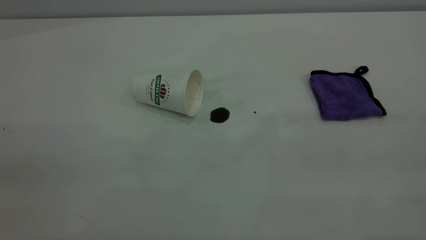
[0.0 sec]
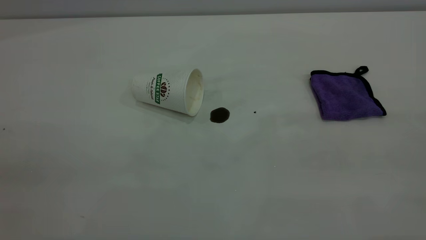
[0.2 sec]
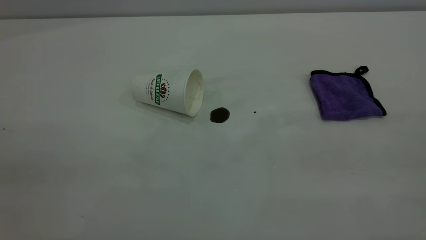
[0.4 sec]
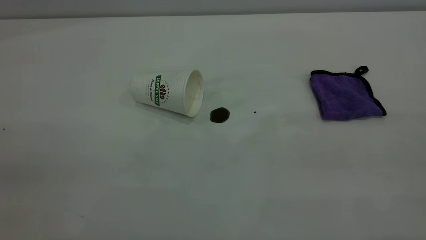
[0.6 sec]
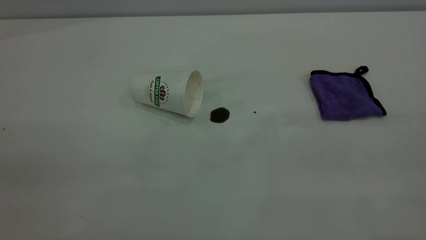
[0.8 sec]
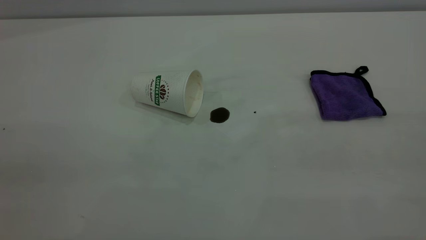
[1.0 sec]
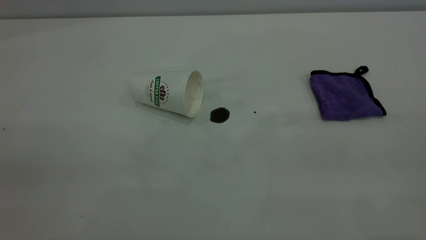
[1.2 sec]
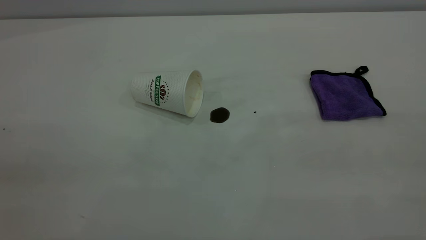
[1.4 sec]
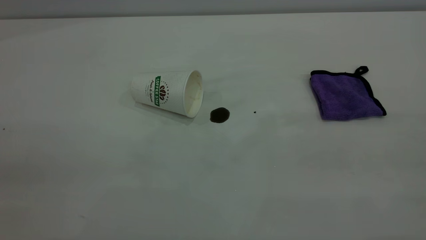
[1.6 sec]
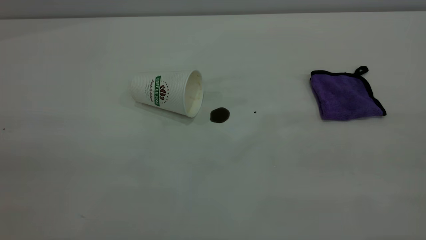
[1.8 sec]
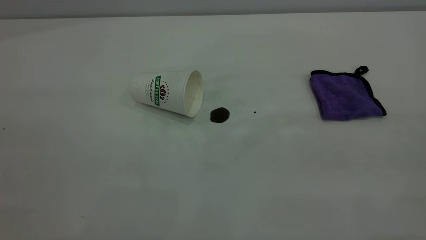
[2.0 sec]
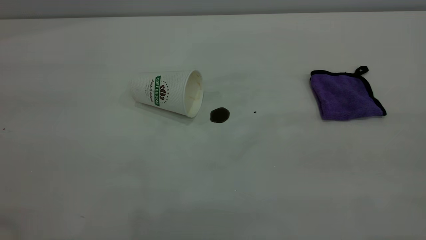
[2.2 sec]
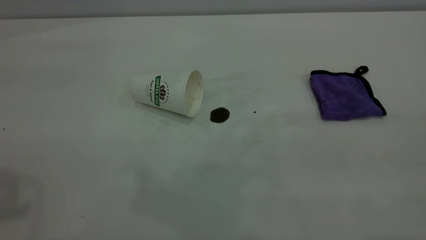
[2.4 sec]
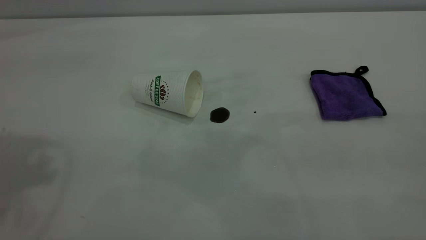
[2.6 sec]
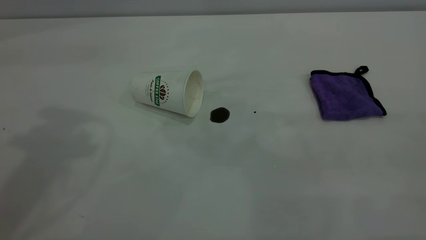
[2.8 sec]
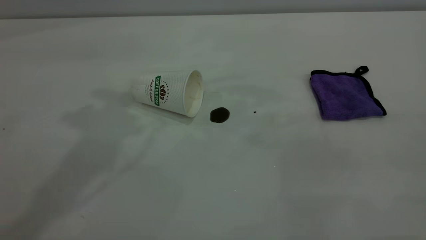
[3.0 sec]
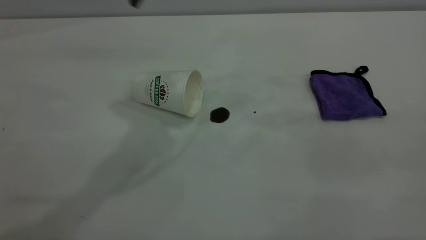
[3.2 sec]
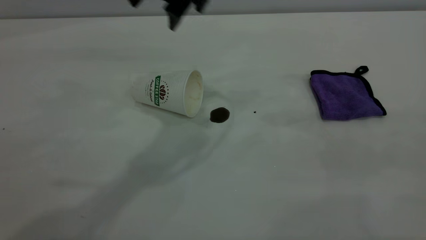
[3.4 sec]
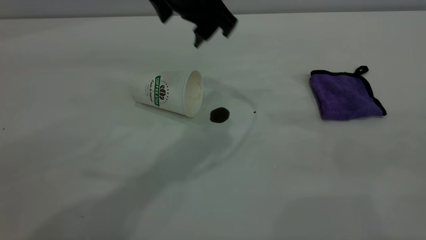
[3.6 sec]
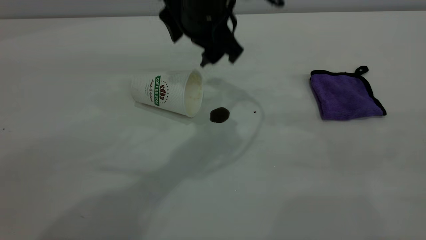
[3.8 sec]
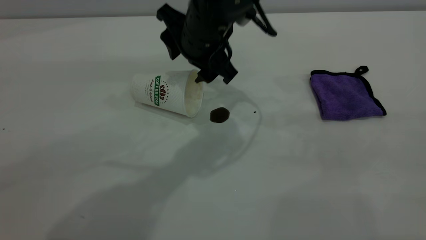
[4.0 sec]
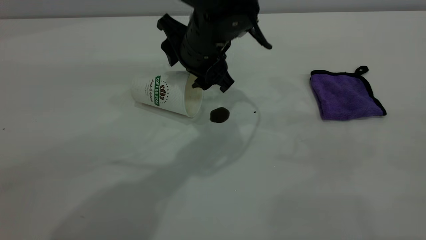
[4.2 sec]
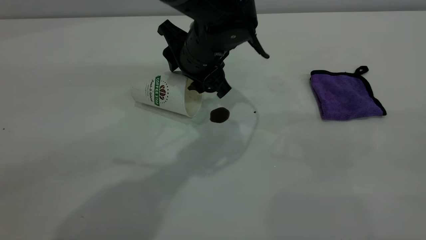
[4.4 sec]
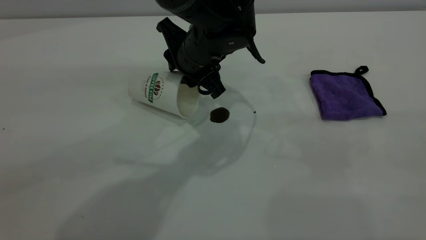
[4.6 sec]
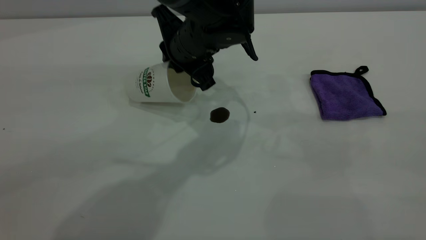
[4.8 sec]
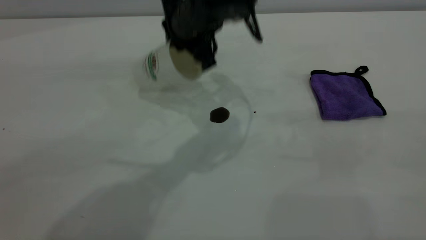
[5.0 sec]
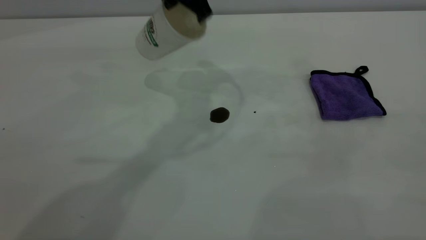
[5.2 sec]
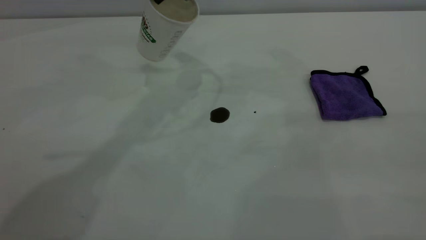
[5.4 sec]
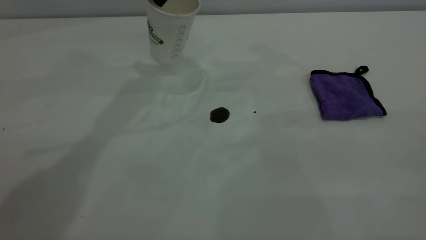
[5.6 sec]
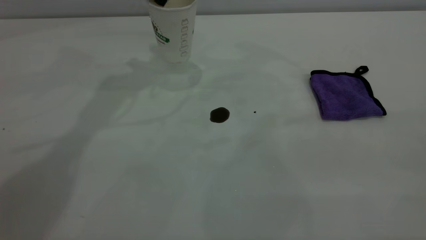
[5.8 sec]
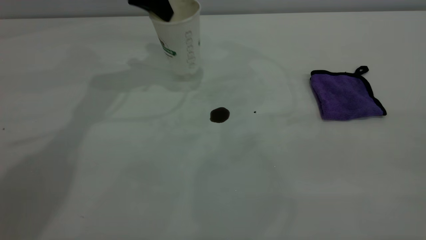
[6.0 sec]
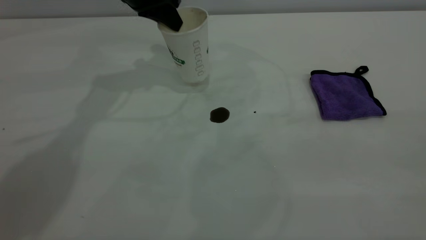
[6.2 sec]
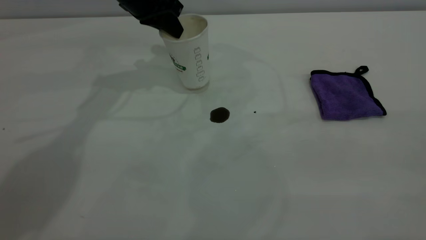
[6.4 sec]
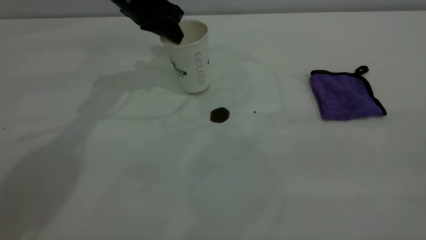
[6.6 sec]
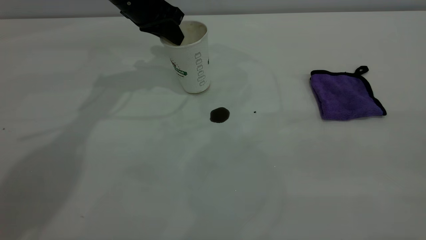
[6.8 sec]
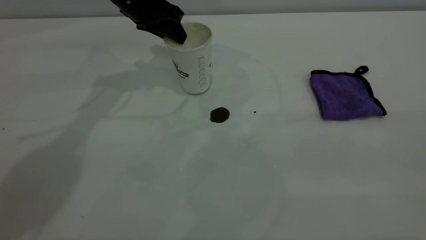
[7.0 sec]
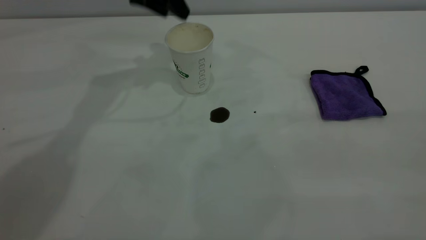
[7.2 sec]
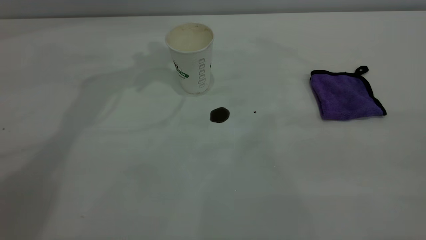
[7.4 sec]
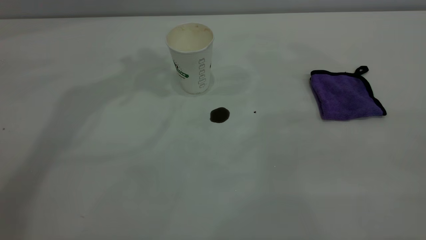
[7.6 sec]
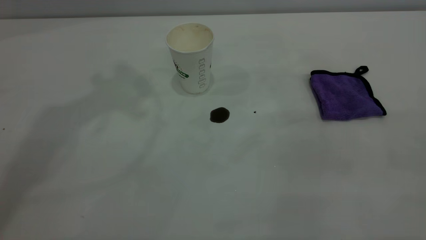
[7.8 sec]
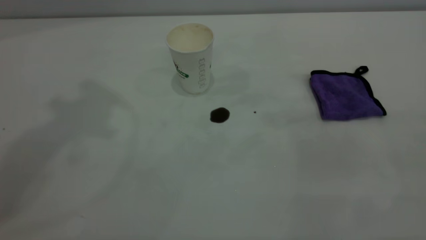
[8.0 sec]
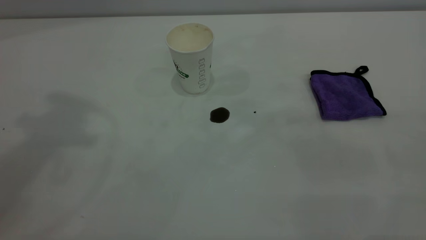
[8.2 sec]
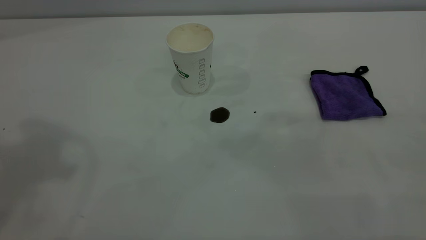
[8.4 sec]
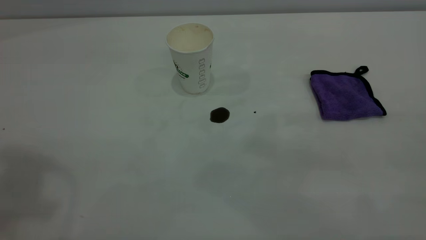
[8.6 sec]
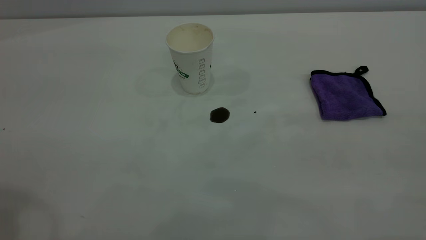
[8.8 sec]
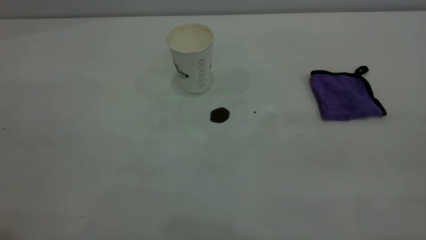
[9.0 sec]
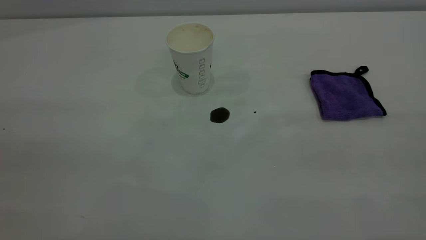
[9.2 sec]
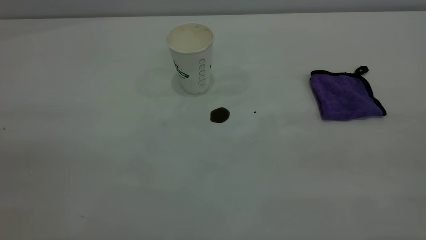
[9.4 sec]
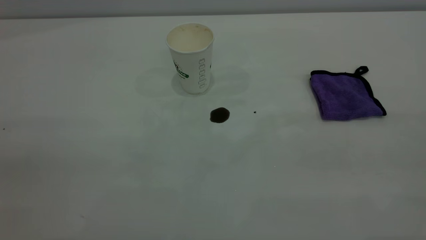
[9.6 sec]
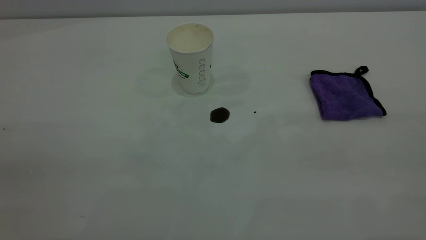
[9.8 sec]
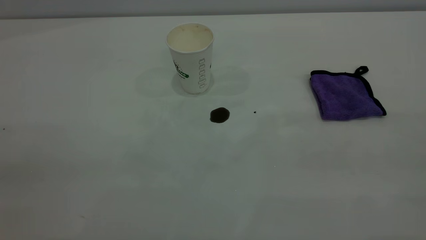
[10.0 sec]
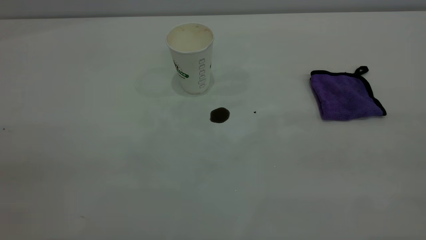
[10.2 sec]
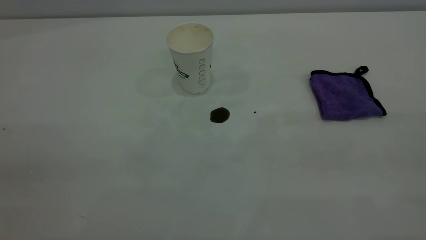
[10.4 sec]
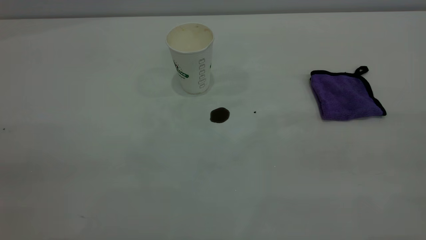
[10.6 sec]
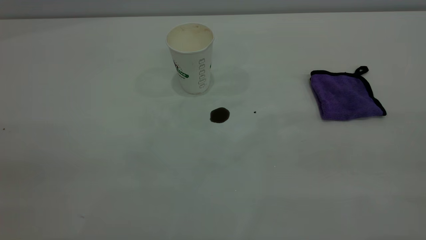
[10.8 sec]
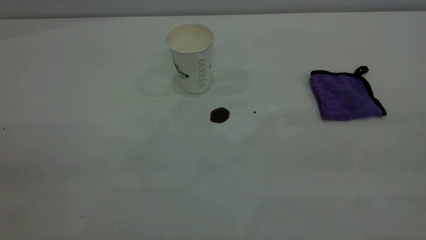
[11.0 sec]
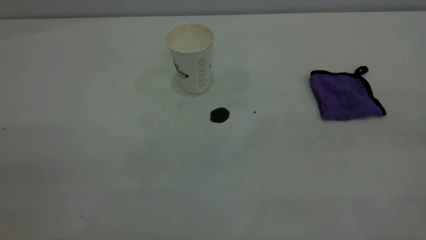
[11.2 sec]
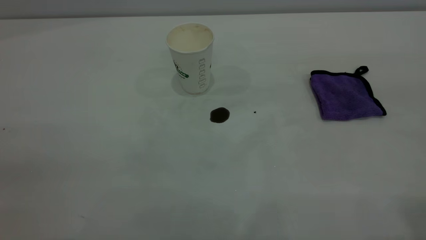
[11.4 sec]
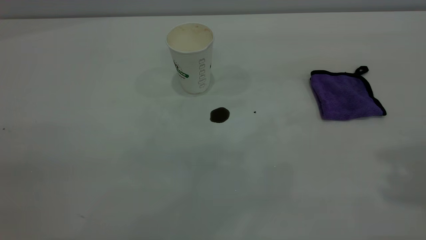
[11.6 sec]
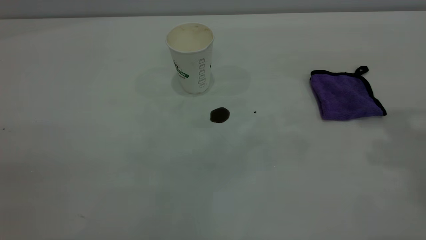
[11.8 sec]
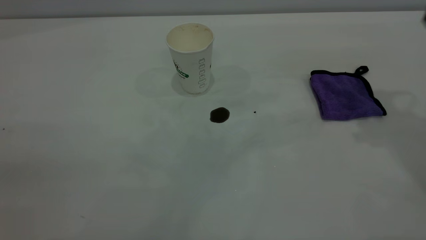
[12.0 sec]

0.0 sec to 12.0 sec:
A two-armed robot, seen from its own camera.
Task of the whole recording: the left gripper pick up the fallen cup and place it upright, the right gripper grasp the purple rag and wipe the coffee stain on the table, the right gripper put the purple rag back in its original position.
Step, 0.0 sec to 7.0 sec: Stand the paper cup upright.
0.0 sec to 1.6 sec: The two grippers keep their place.
3.0 sec to 4.4 sec: The left gripper travels downward and to the right by some 25 cm.
4.4 sec to 6.0 sec: The left gripper moves to the left, forward and upward, about 20 cm, and closes up.
6.0 sec to 7.6 sec: The left gripper moves upward, roughly 20 cm, and opens up.

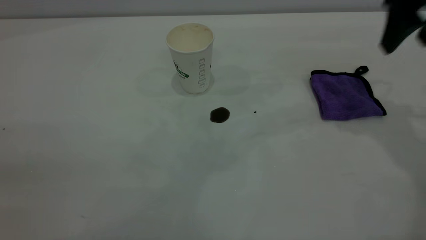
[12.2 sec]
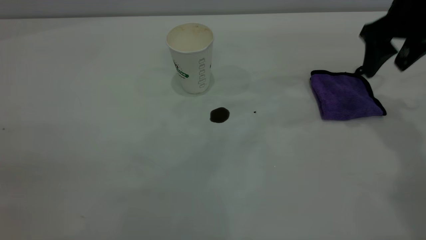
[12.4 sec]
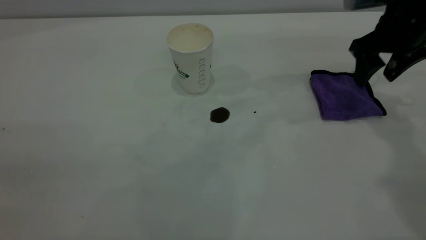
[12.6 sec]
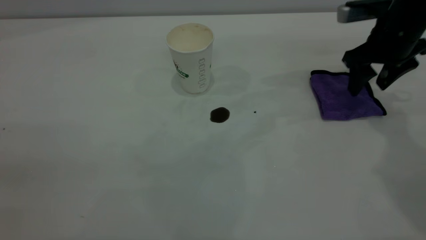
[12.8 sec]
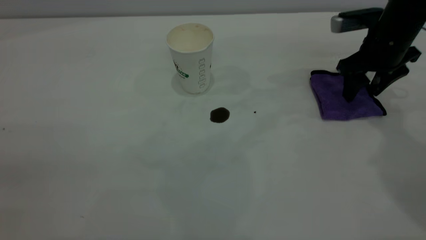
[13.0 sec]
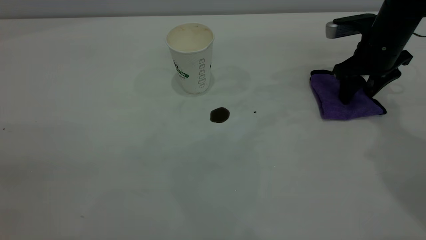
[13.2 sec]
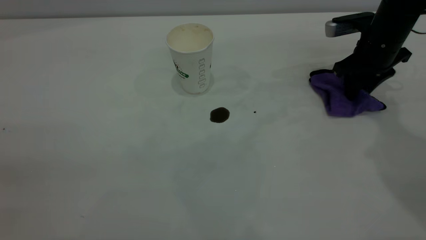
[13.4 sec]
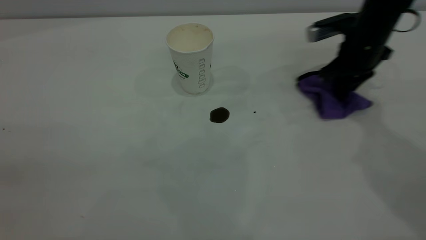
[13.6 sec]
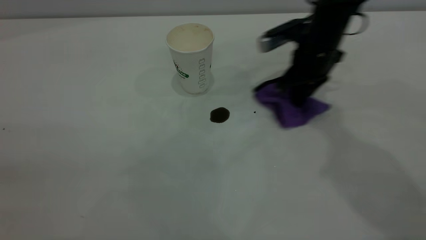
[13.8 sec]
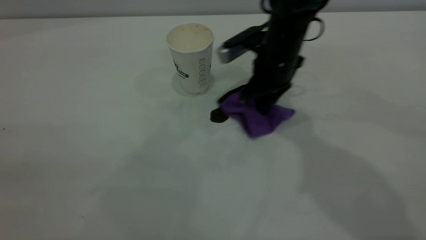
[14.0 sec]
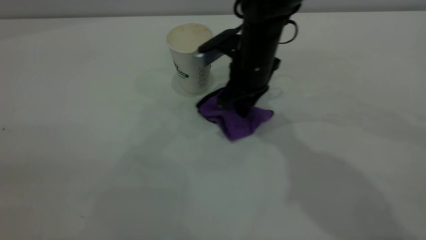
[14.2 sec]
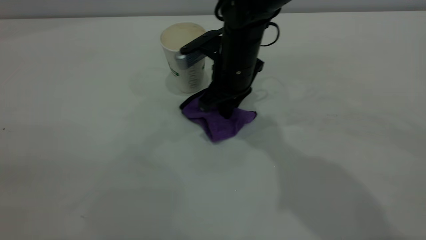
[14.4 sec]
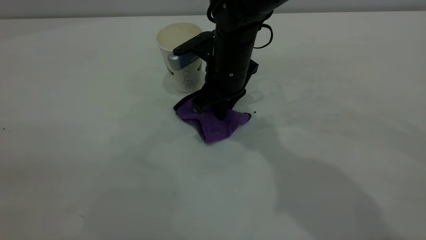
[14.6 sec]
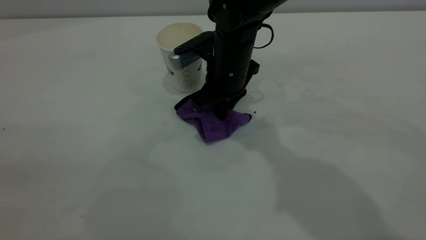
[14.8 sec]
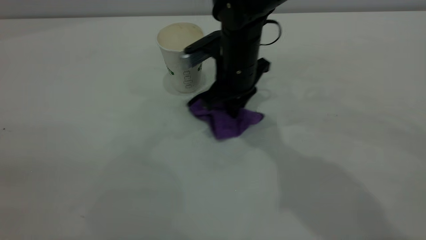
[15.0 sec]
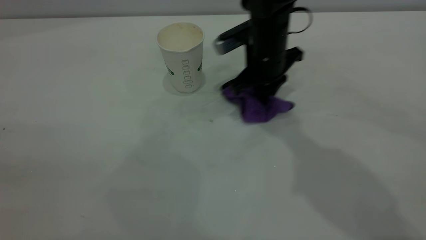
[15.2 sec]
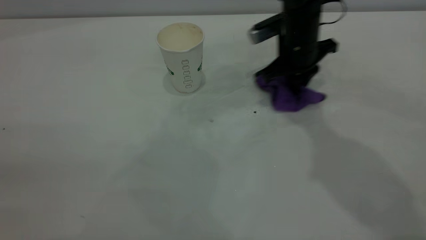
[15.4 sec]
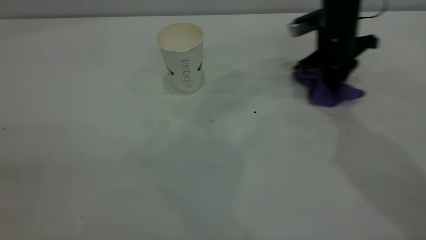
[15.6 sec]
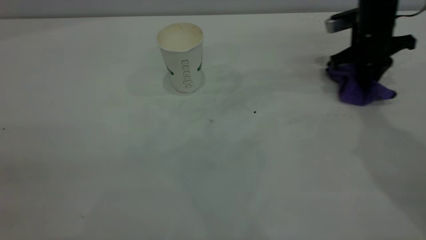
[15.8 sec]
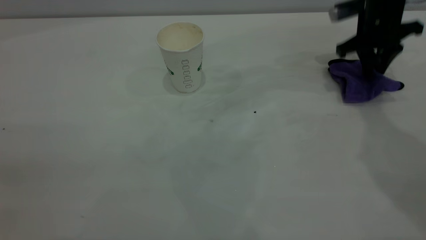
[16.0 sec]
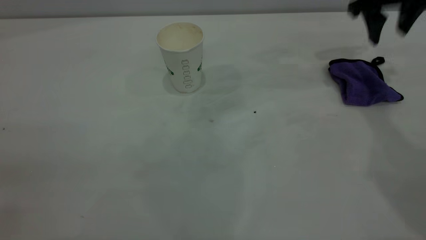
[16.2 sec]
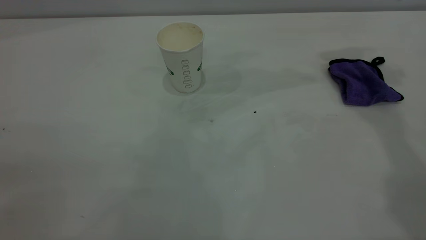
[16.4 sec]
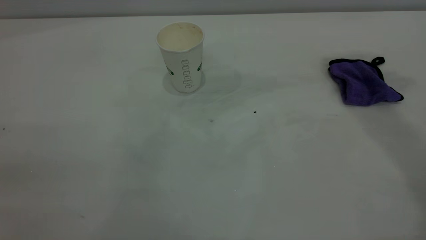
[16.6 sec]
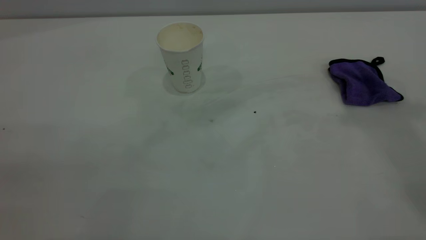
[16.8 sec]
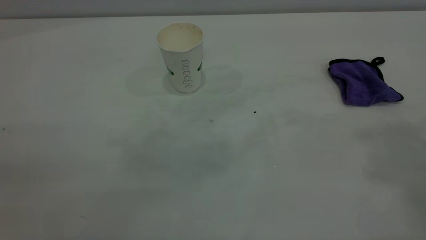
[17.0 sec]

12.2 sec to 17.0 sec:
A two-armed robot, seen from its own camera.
Task of the whole recording: the left gripper pick up the fallen cup and place it upright, the right gripper grasp the purple rag and wipe the coffee stain on the table, the right gripper put the purple rag back in its original position.
Step, 12.2 sec to 16.0 sec: Wipe the stains off the table with a rag.
12.2 sec to 13.8 sec: The right gripper shifts some 20 cm to the left and downward, and closes.
13.8 sec to 15.4 sec: The right gripper goes to the left and returns, some 10 cm each way.
15.4 sec to 17.0 sec: The right gripper shifts roughly 50 cm upward and backward, and opens its fingers.
